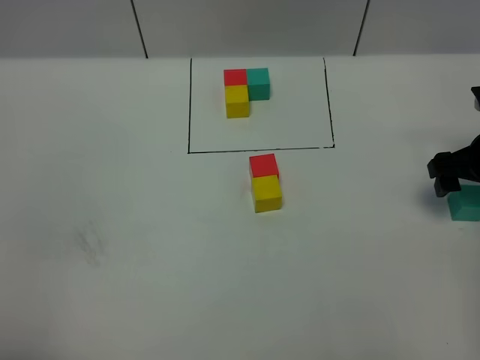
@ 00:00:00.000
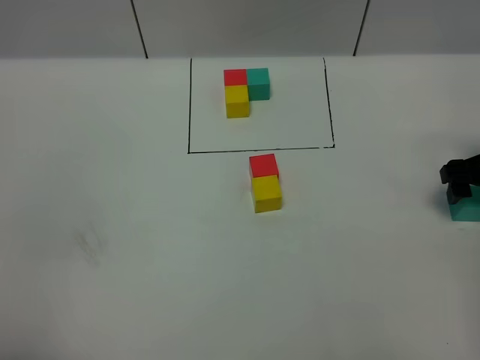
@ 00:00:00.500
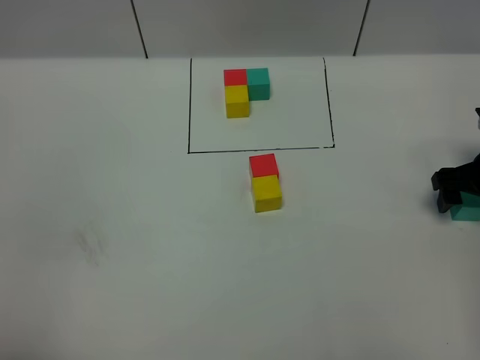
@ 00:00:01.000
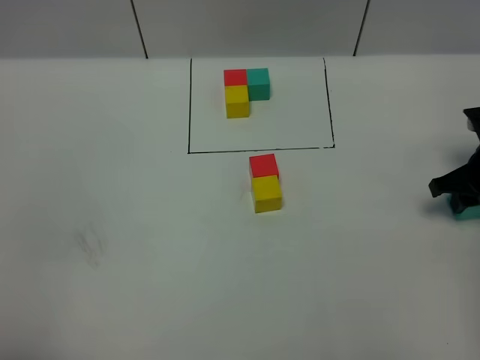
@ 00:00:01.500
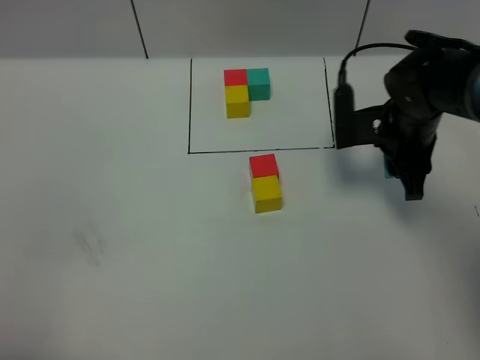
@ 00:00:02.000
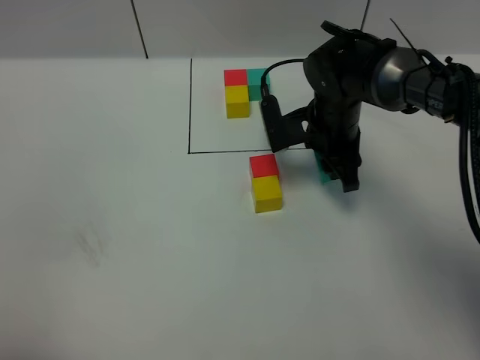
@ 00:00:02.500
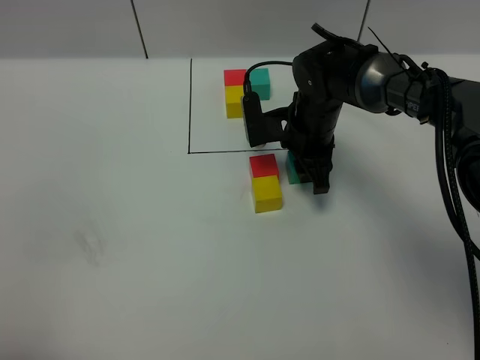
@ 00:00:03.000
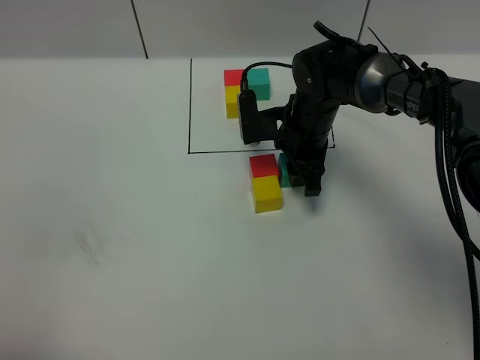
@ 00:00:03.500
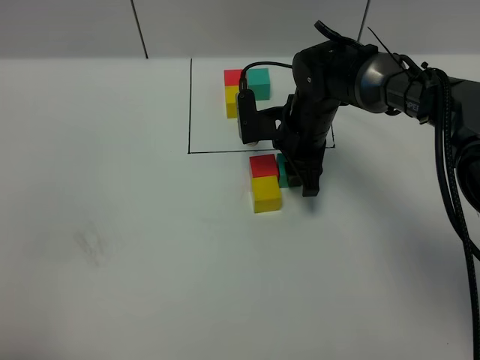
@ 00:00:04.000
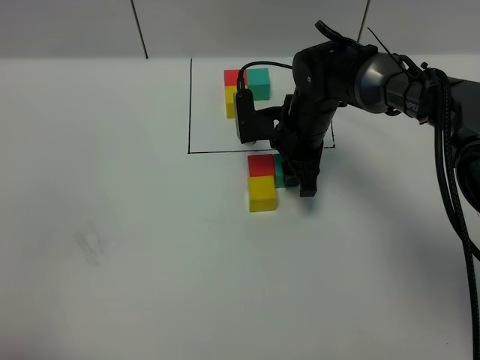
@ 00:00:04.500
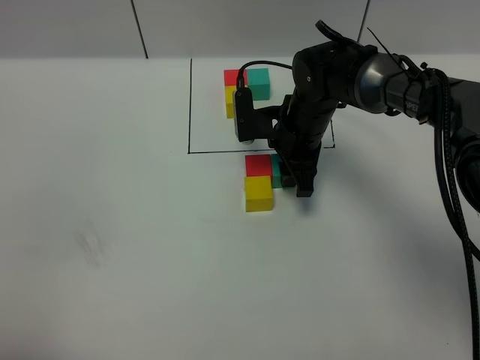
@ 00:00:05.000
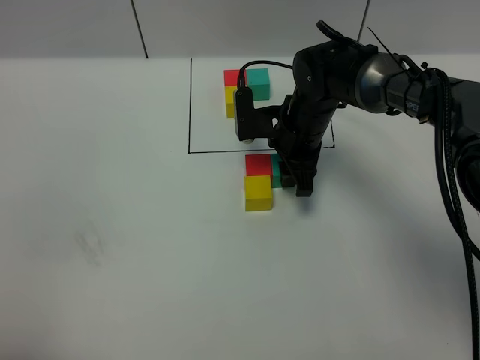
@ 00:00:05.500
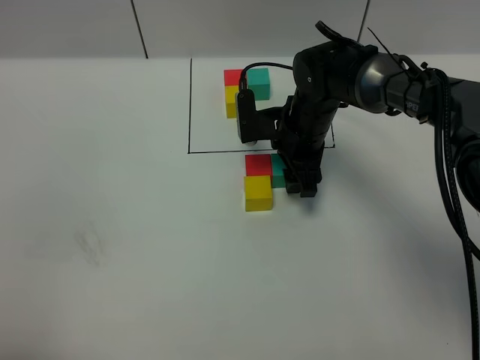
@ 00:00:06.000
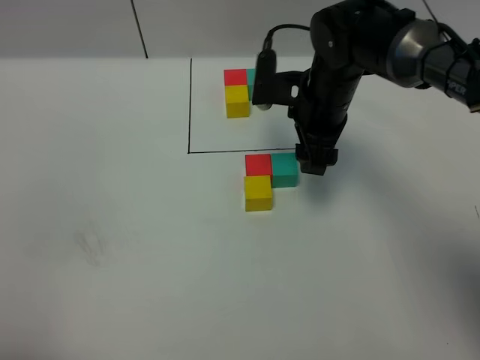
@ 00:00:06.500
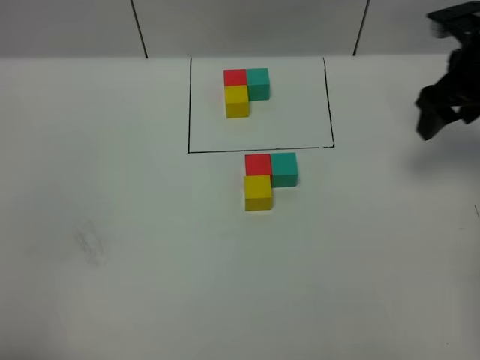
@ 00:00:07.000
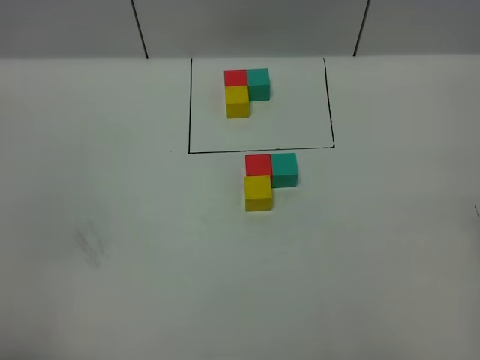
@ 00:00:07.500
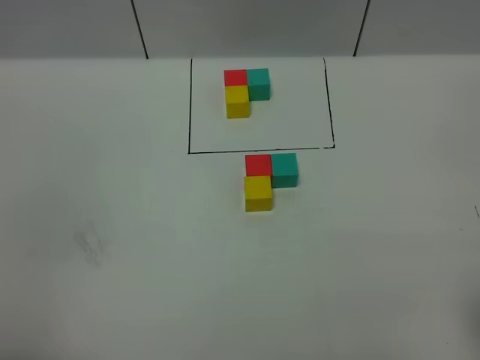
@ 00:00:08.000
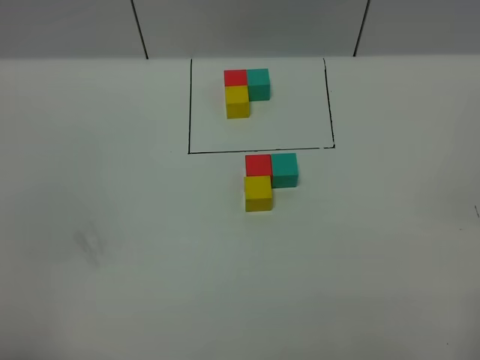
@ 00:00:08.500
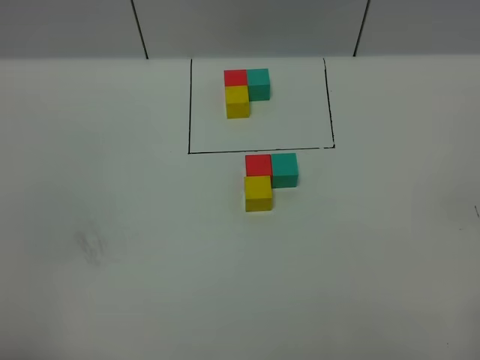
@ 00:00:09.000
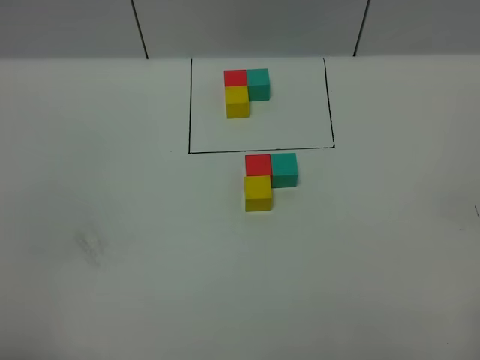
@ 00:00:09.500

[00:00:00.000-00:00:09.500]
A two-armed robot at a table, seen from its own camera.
Task of the whole recording: According to the building block template in front, assemble the scattered blocks together.
Step, 00:00:00.000 to 00:00:06.000: Put the green build block on the right of the red build block.
00:00:00.000 to 00:00:02.000: The right gripper is displaced to the left by about 15 cm, and closes up.
00:00:02.000 to 00:00:04.000: The right gripper moves to the left, about 10 cm.
00:00:04.000 to 00:00:05.500: Both grippers stay put.
00:00:05.500 to 00:00:07.500: The right gripper goes roughly 40 cm to the right, backward and upward, and opens.
